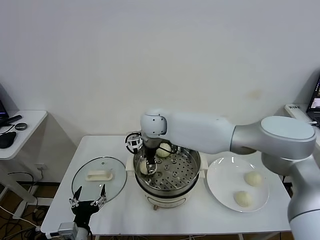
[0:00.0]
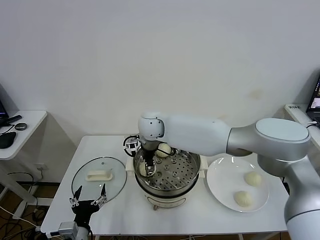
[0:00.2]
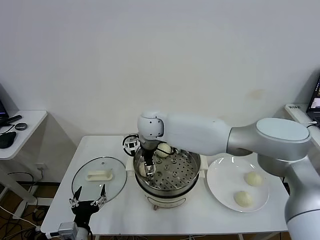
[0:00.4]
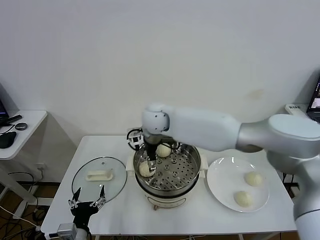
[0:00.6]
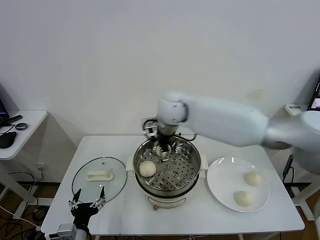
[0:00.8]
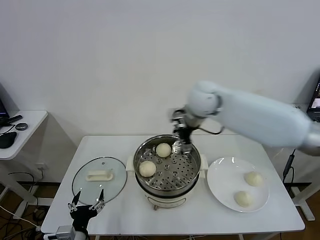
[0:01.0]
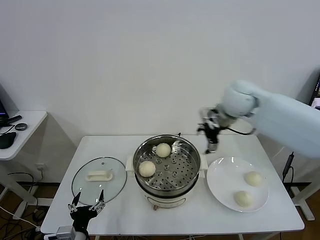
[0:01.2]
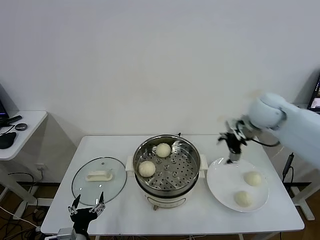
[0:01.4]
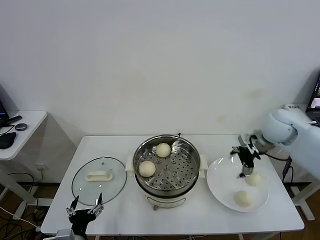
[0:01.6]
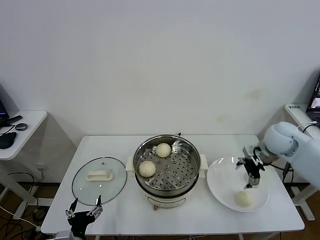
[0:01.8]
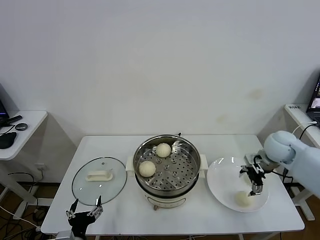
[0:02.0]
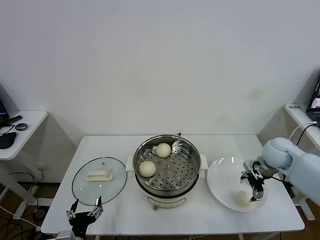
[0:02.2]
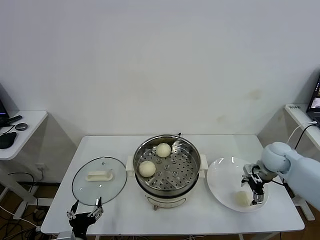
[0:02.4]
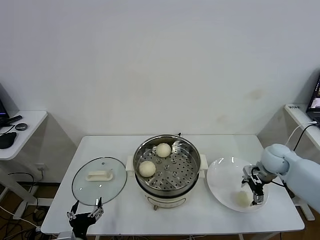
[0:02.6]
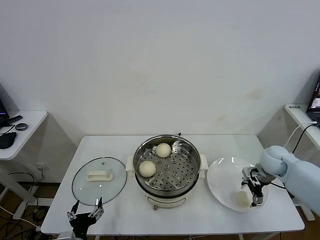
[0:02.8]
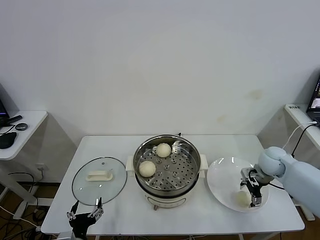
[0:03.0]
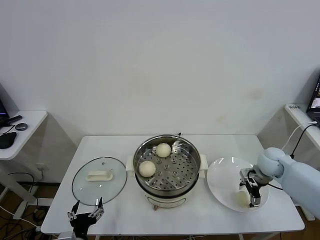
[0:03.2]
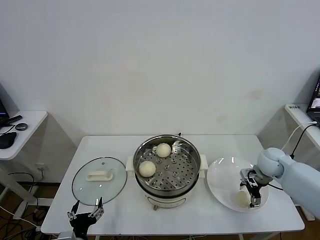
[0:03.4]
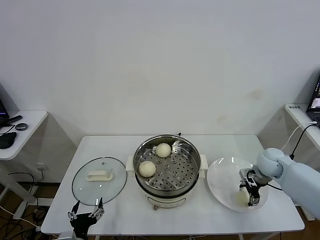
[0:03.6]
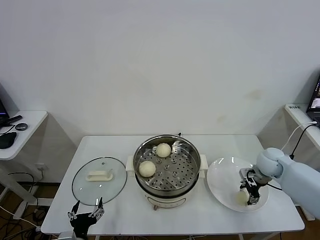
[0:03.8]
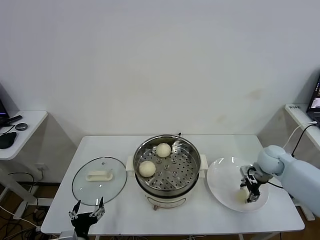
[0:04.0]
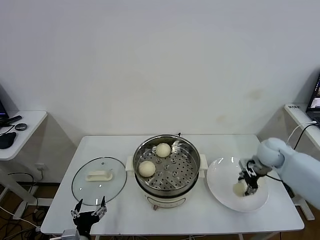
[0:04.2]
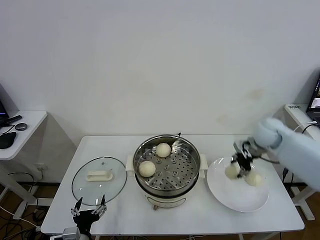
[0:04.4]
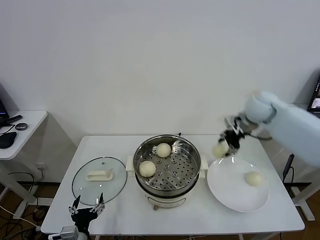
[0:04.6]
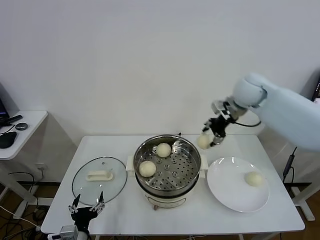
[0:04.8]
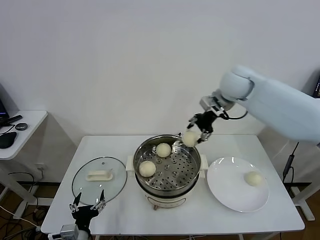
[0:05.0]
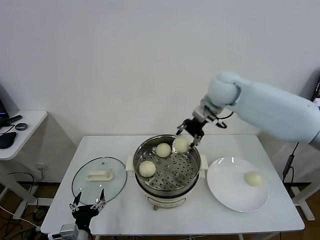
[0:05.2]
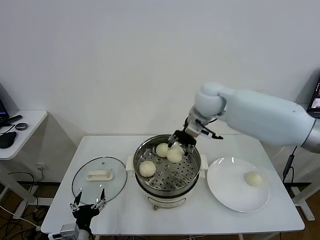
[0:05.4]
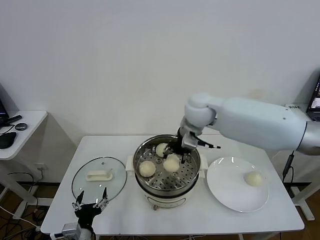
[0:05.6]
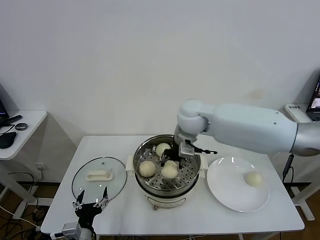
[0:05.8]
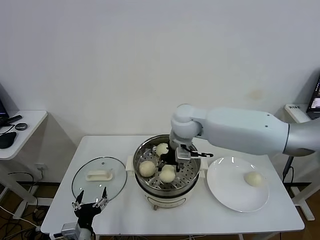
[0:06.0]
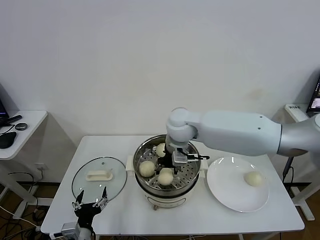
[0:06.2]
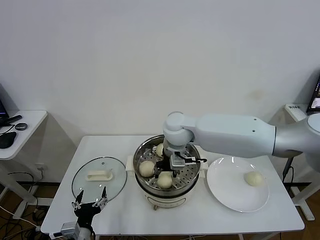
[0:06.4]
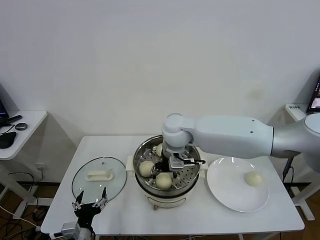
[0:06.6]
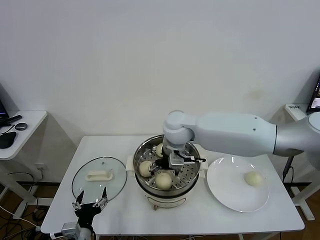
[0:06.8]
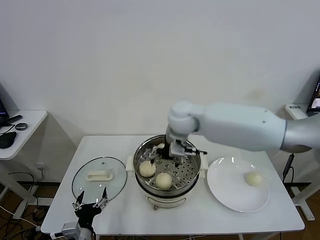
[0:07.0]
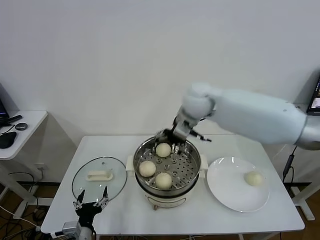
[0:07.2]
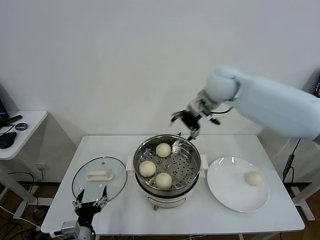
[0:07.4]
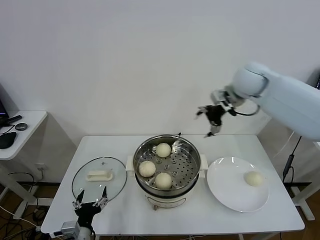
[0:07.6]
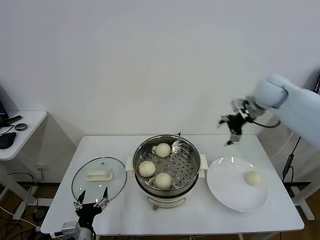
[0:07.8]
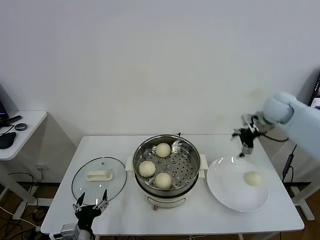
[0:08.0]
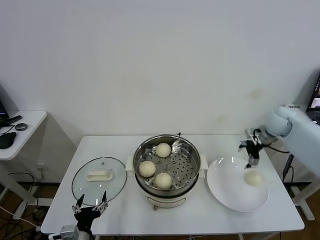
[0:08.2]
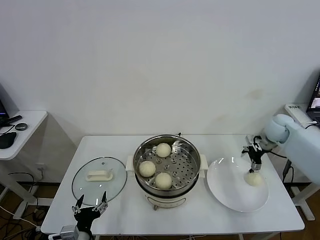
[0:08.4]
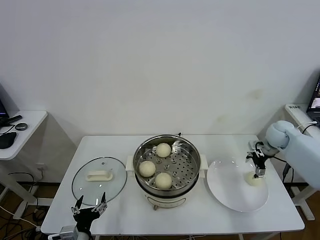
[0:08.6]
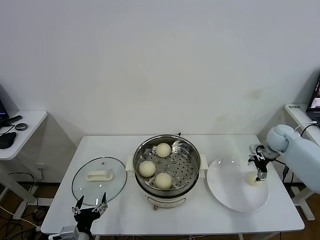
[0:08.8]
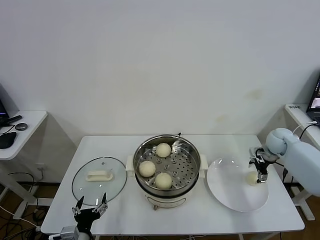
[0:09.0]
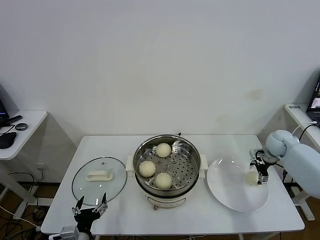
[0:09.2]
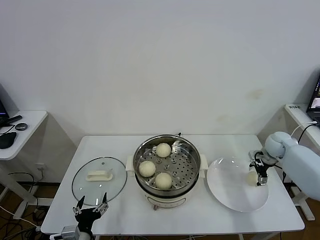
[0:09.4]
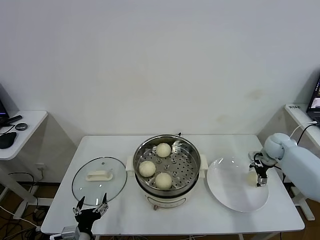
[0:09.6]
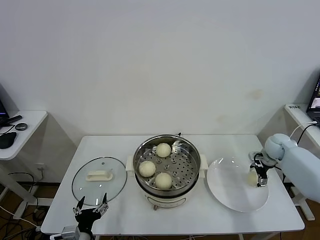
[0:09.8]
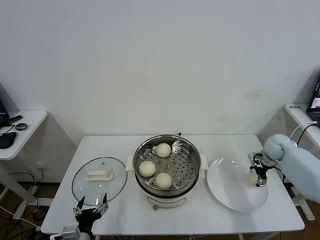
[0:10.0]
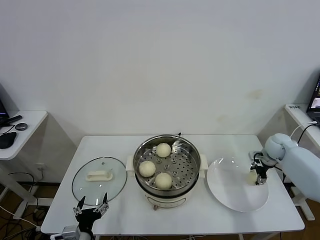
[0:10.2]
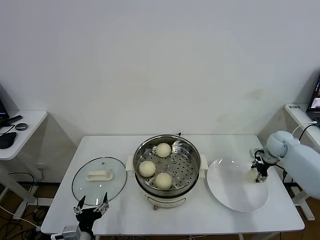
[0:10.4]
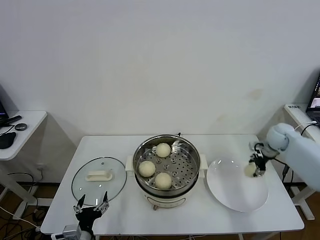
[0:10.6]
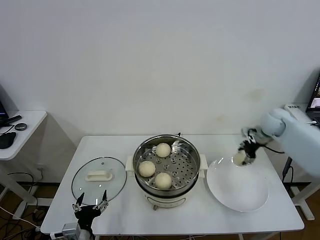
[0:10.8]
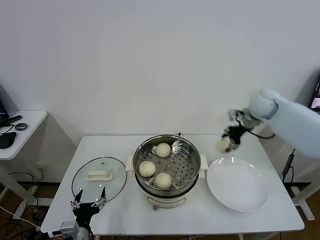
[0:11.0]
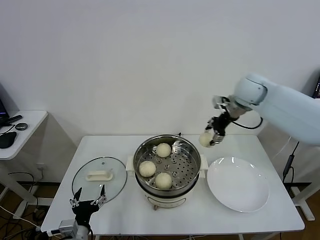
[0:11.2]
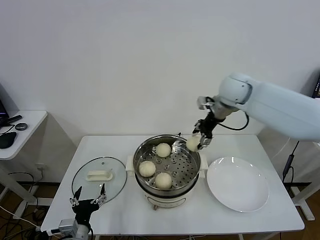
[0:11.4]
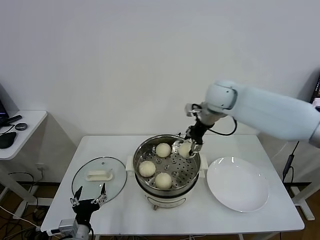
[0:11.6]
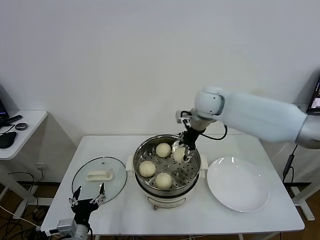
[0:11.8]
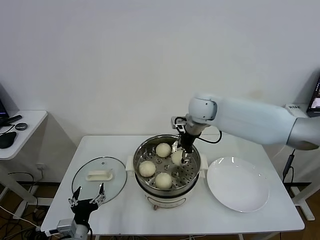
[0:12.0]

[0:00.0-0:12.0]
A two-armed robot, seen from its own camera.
Task of the whole recording: take steamed baozi put them in steamer.
Step, 0:00.8 to 0:03.8: Grasp the baozi in the plate with right gripper.
Step, 0:04.0 to 0:06.8: Place the baozi on the steamer with right gripper.
Step, 0:07.0 to 0:10.4: Grasp the baozi in the plate with right gripper.
0:00.0 to 0:01.6: The right gripper shifts some 40 cm to the right, and opens up.
0:01.6 to 0:03.0: The right gripper travels downward by some 15 cm.
0:03.0 to 0:04.4: The right gripper heads upward and forward, covering roughly 15 cm, and closes its fingers.
0:04.4 to 0:06.0: The right gripper goes about 30 cm to the left.
0:06.0 to 0:07.6: The right gripper shifts some 25 cm to the right and upward, and opens.
0:07.6 to 0:09.0: The right gripper moves downward and to the right, roughly 30 cm.
0:09.0 to 0:10.4: The right gripper closes up.
0:10.4 to 0:12.0: The right gripper shifts about 35 cm to the left and upward.

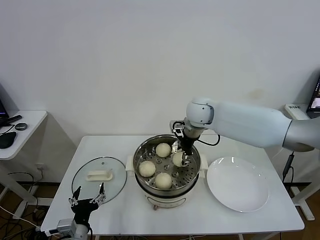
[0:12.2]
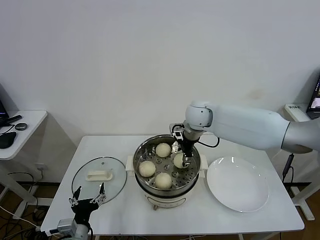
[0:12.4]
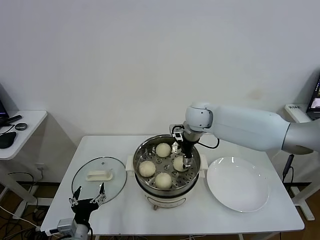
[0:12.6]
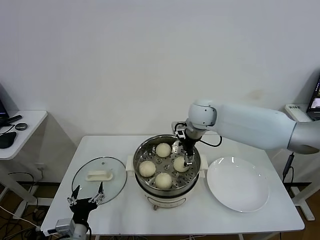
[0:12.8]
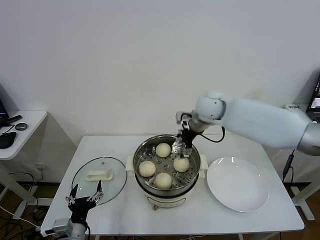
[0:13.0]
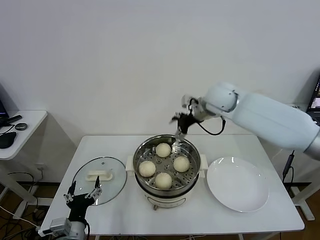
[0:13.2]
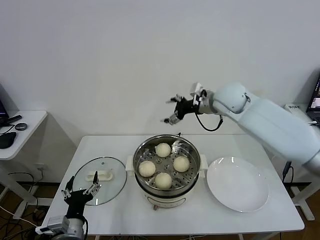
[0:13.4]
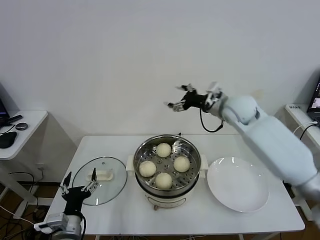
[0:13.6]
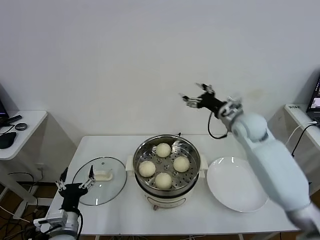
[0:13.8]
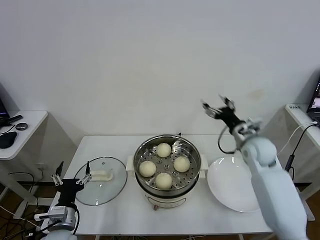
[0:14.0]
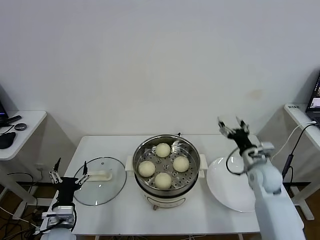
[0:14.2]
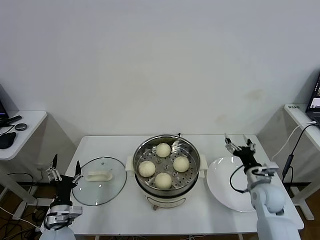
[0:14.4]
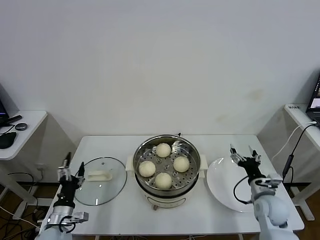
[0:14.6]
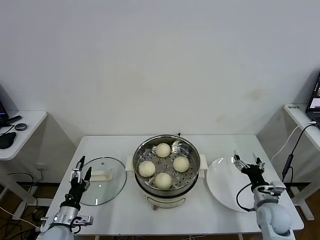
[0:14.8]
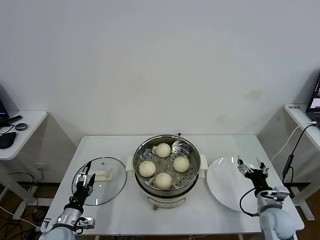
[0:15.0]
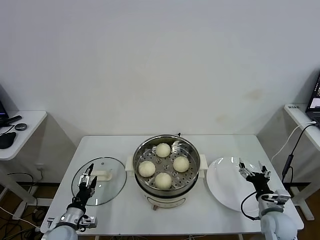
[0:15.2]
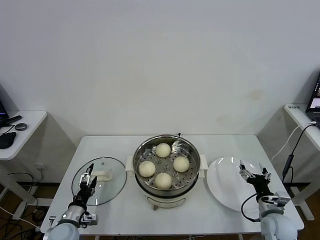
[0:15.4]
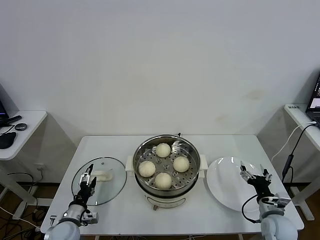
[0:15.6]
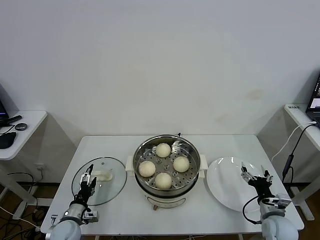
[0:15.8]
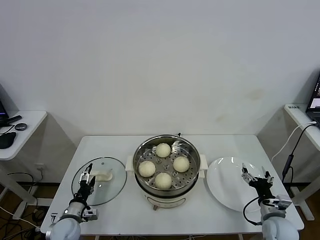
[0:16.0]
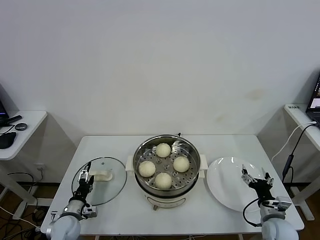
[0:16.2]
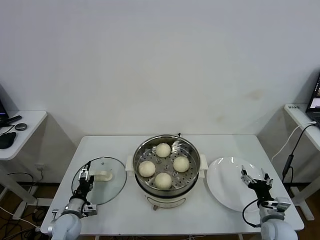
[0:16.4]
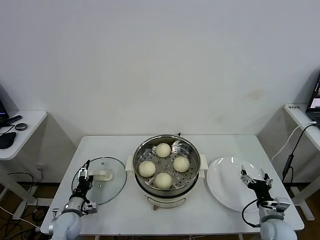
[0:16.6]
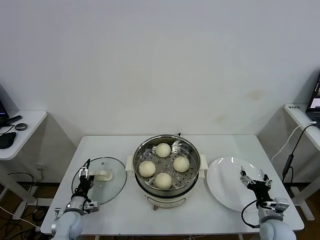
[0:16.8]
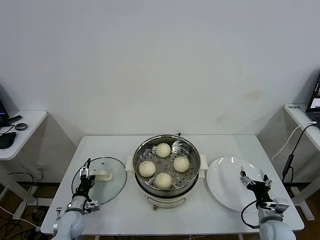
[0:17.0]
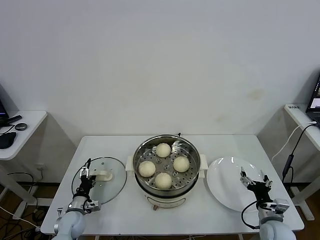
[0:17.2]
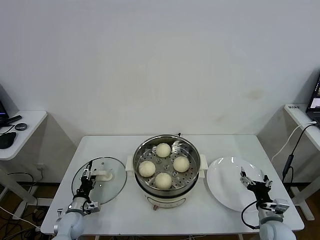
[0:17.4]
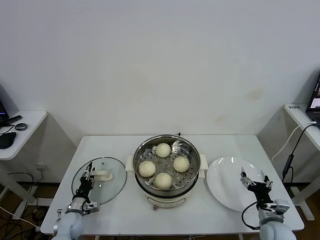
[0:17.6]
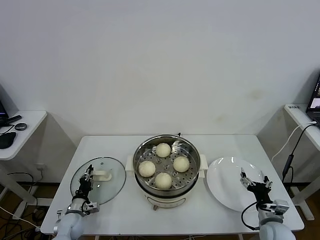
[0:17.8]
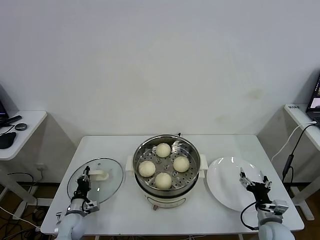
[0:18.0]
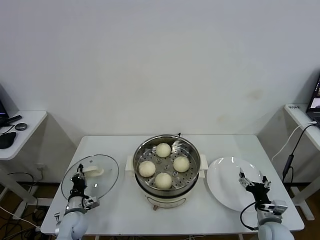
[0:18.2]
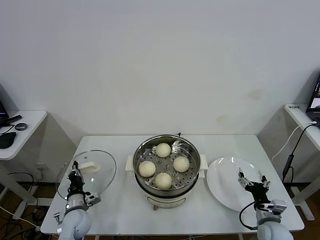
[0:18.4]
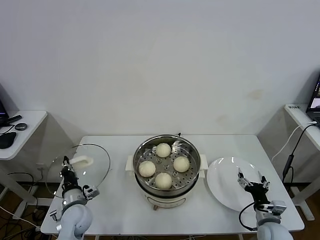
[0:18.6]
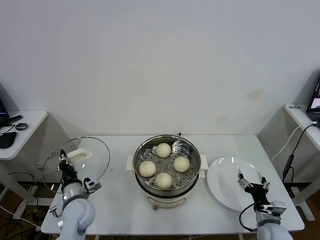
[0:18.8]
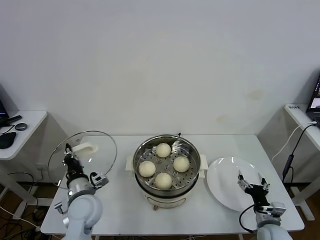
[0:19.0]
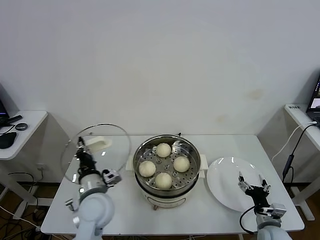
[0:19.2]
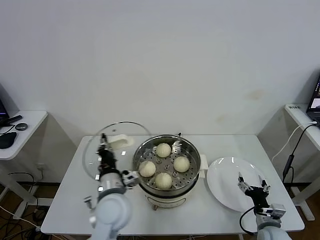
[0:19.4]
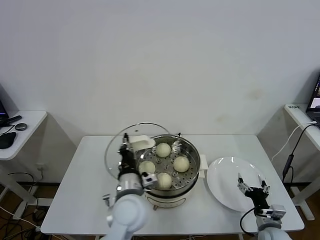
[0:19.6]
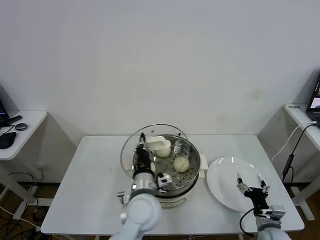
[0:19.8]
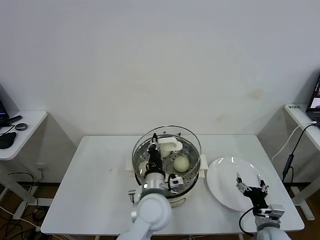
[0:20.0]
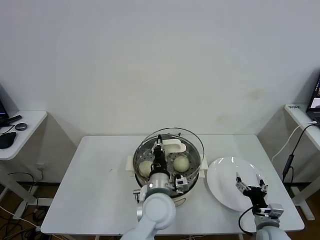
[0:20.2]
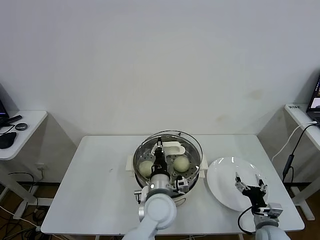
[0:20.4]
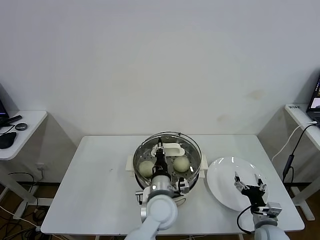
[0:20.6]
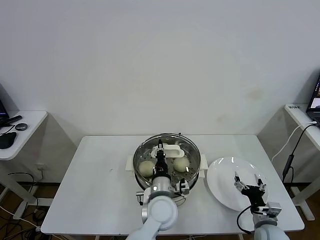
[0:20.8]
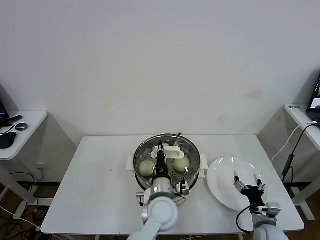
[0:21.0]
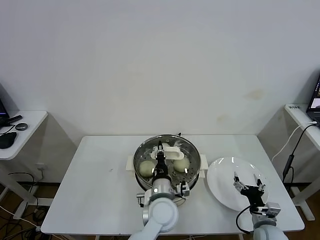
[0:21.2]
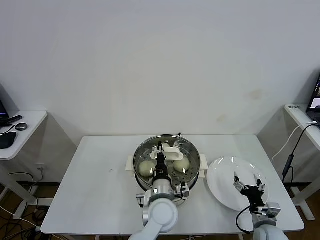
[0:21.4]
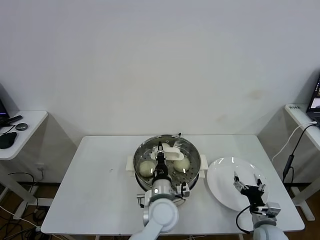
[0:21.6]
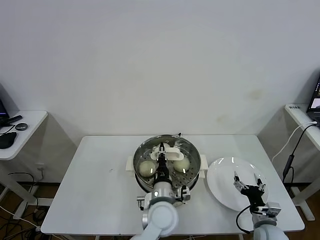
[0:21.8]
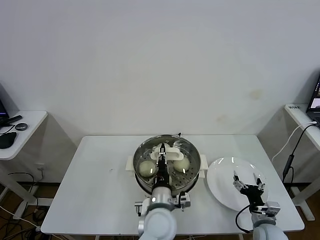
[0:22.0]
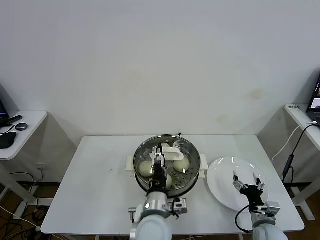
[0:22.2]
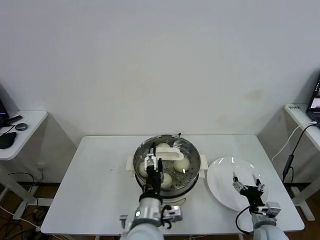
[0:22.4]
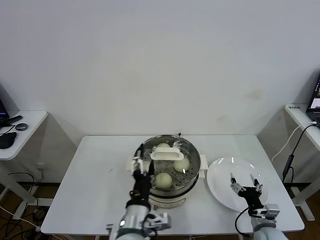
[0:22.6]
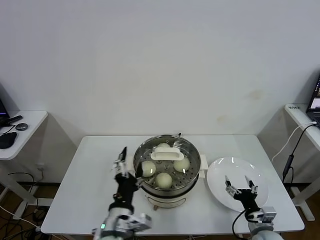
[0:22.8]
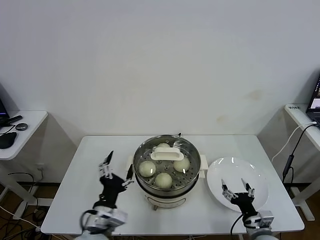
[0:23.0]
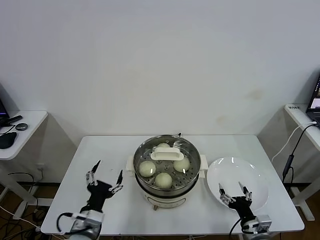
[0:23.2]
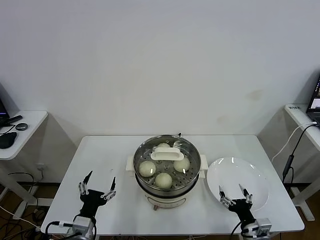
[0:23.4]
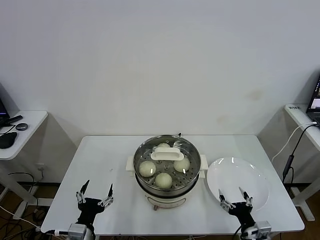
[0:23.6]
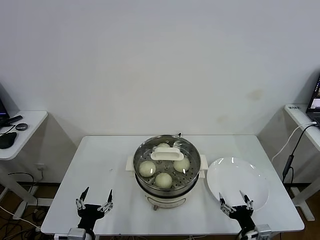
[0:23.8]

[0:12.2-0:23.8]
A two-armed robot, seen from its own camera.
Task of the whole recording: take steamed baozi put them in steamer.
Step, 0:13.0 to 0:18.0: Grasp the pot lid with left gripper.
Step, 0:18.2 to 0:22.2: Place the pot lid on the steamer with left gripper.
0:12.2 to 0:13.6: The right gripper shifts some 10 cm to the right, and opens its fingers.
0:13.6 to 0:15.0: The left gripper travels downward, to the left and forward by approximately 10 cm. Meanwhile the right gripper heads downward, backward and to the right, covering roughly 40 cm.
0:15.0 to 0:16.6: The left gripper travels forward and downward by about 10 cm.
0:16.6 to 0:18.0: The left gripper closes its fingers.
0:18.0 to 0:19.4: The left gripper heads upward and to the right, covering roughly 30 cm.
0:19.4 to 0:21.0: The left gripper shifts approximately 15 cm to the right.
0:21.0 to 0:22.4: The left gripper is displaced backward by approximately 10 cm, and opens its fingers.
0:22.4 to 0:23.8: The right gripper is displaced backward by roughly 5 cm, while the left gripper travels to the left and downward by roughly 25 cm.
